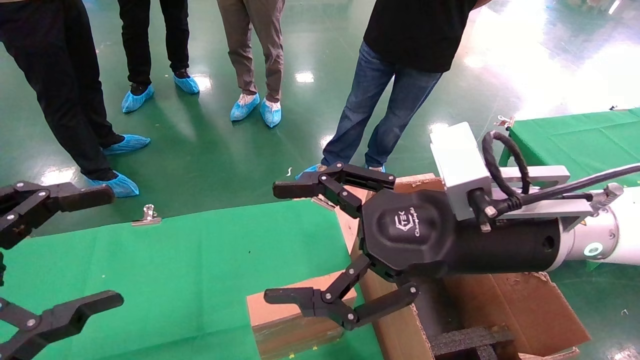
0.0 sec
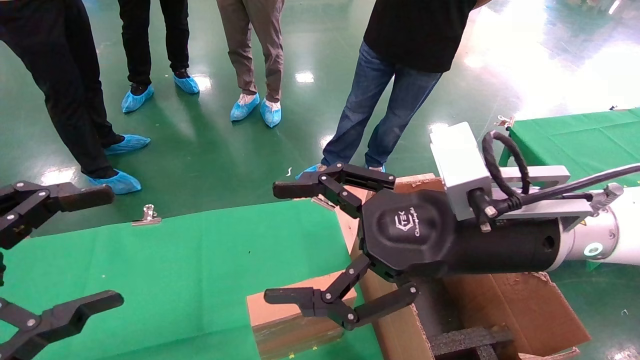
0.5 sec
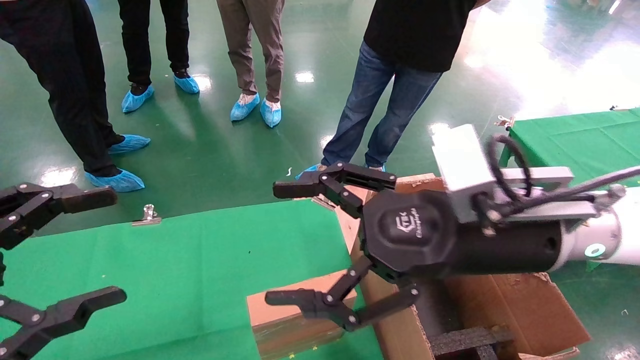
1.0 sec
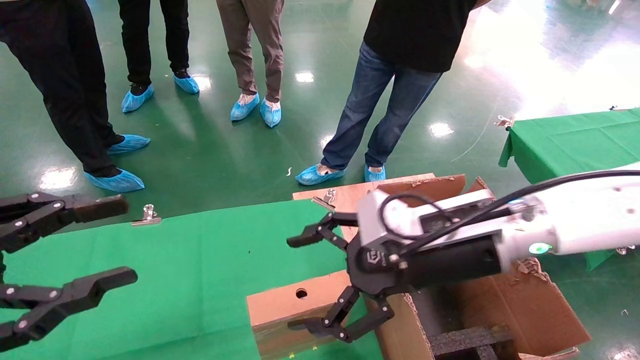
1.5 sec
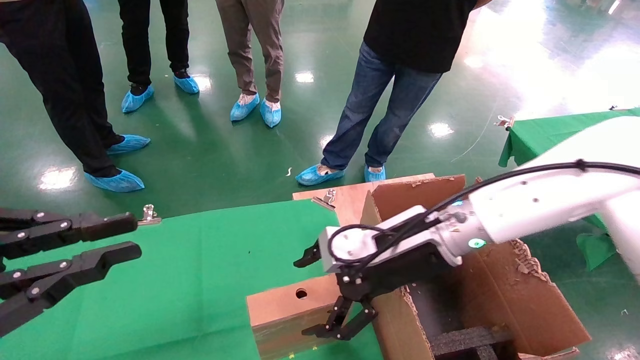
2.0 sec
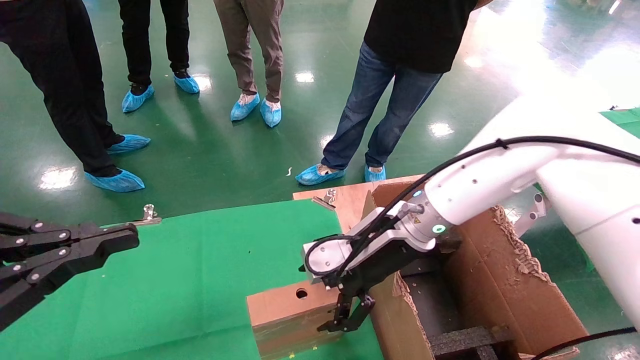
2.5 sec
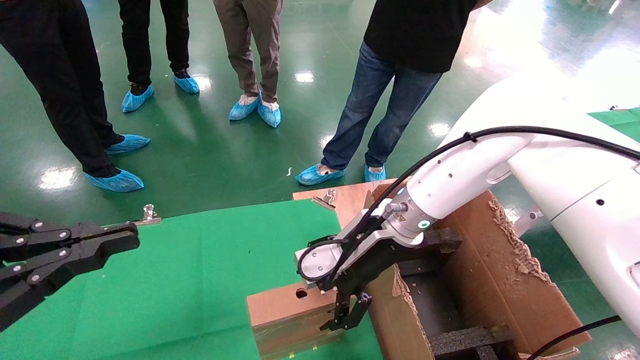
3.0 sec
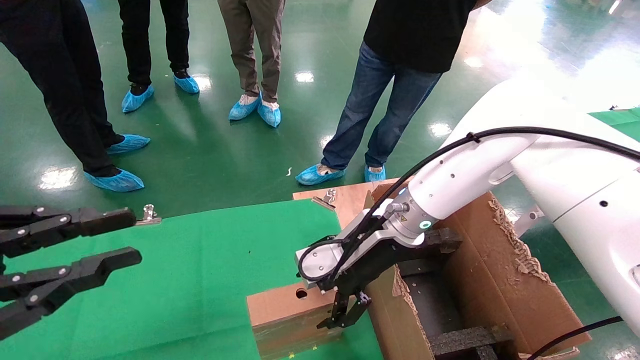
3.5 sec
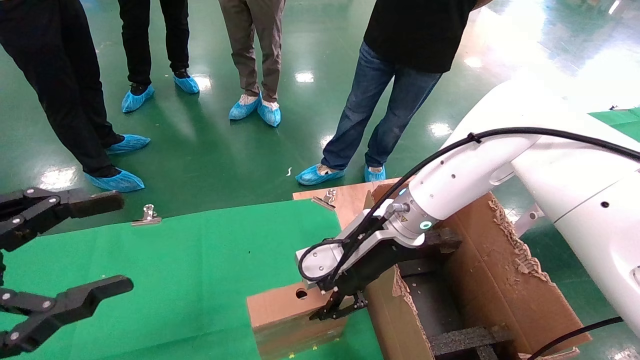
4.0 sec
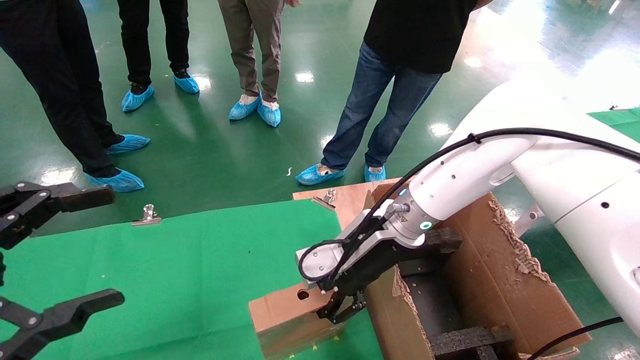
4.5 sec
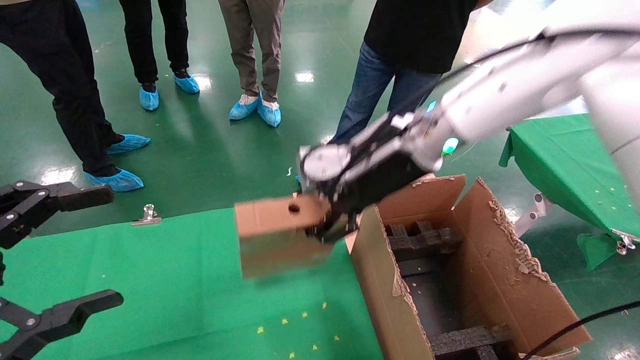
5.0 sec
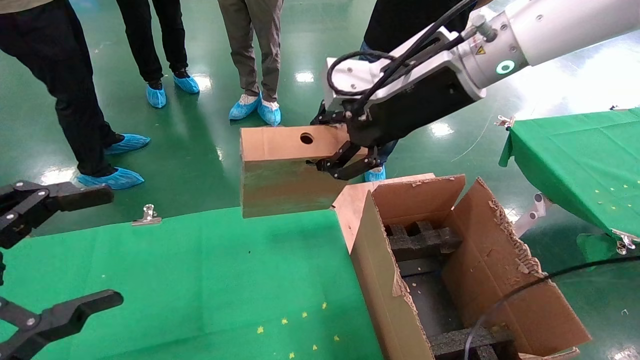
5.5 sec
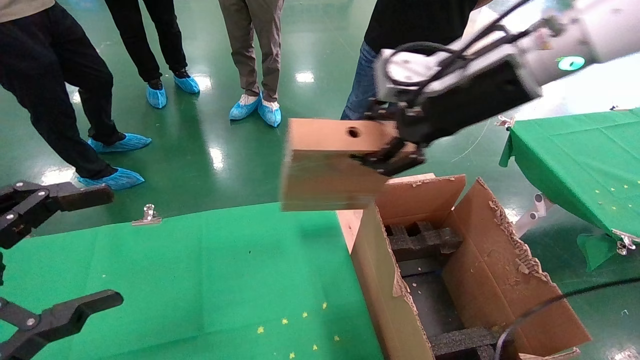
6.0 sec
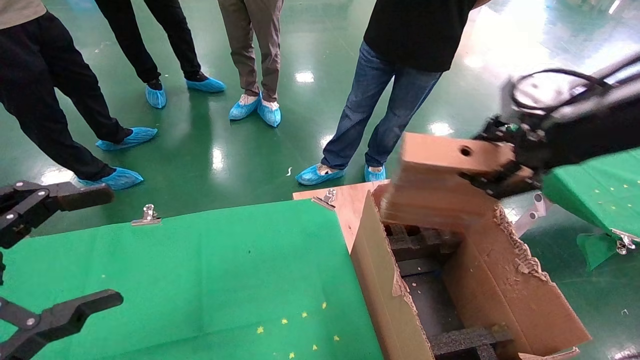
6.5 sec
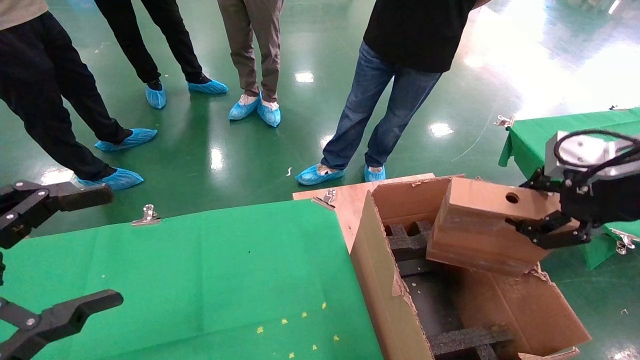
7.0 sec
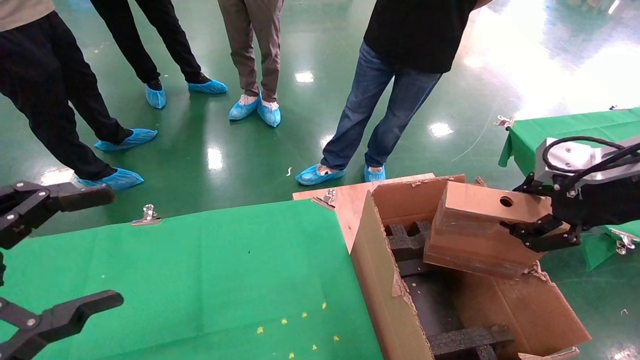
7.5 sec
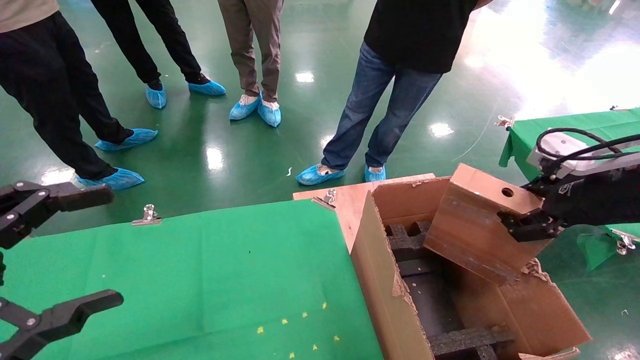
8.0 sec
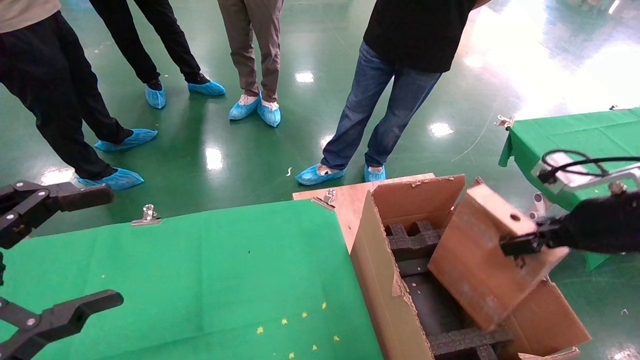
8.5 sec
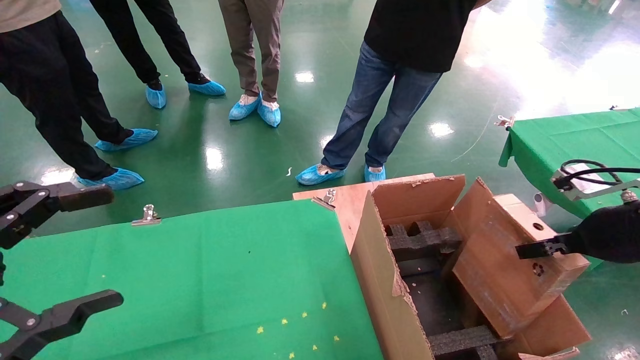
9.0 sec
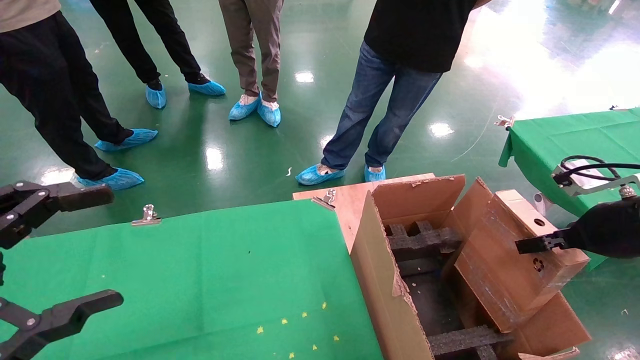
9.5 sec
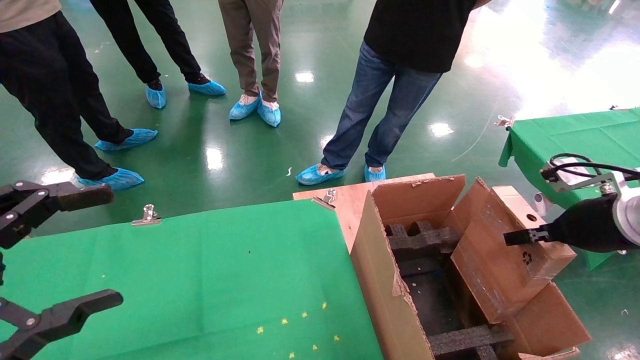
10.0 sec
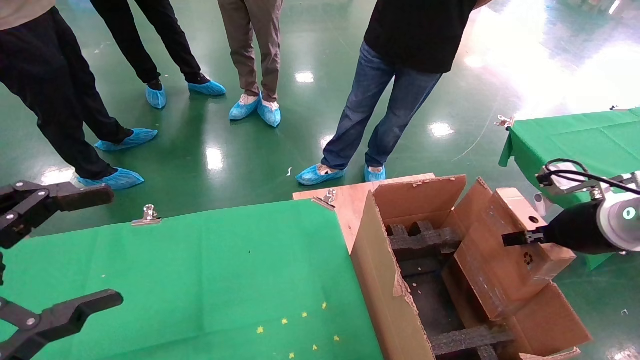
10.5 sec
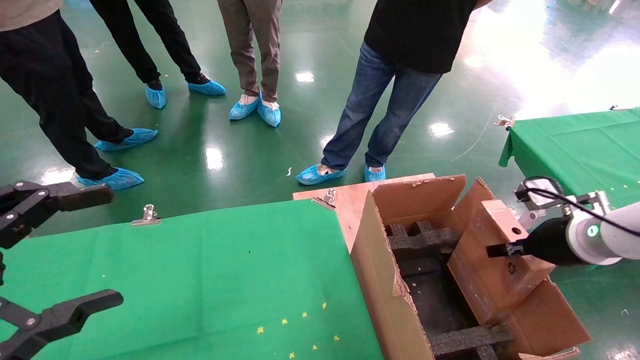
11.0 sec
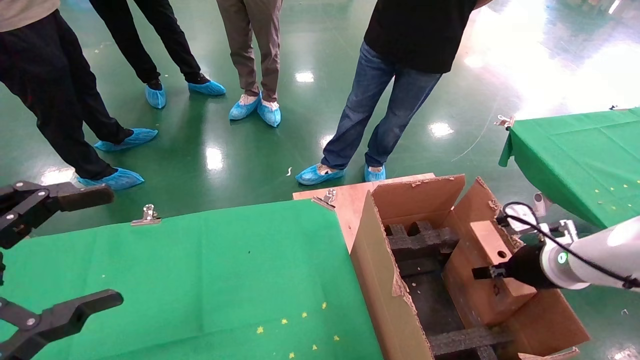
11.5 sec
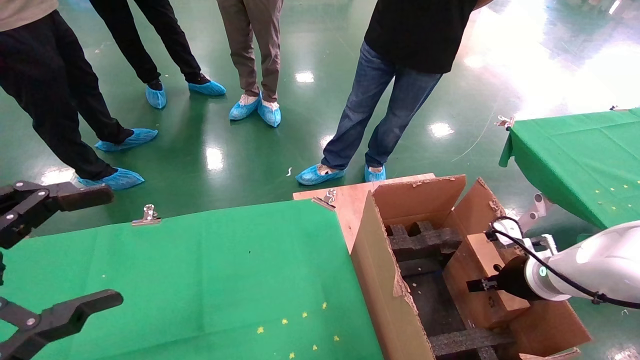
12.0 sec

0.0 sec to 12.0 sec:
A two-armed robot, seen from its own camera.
Task of the whole recording: using a robotic arm to pick up a cardboard box and palace it the carton.
Step, 1.5 sec to 4.0 sec: Pick up the mouse and the power cord paper box.
0.0 sec to 2.0 sec: The left gripper closes, while the right gripper heads forward and downward, covering roughly 10 cm.
2.0 sec to 4.0 sec: The right gripper changes place by some 5 cm, and closes up.
4.0 sec to 6.0 sec: The right gripper travels upward and to the right by approximately 25 cm, and closes, while the left gripper opens.
6.0 sec to 8.0 sec: The right gripper is displaced to the right, downward and backward by roughly 20 cm.
8.0 sec to 10.0 sec: The right gripper heads downward, covering approximately 5 cm.
10.0 sec to 12.0 sec: The right gripper is displaced downward and forward by about 15 cm.

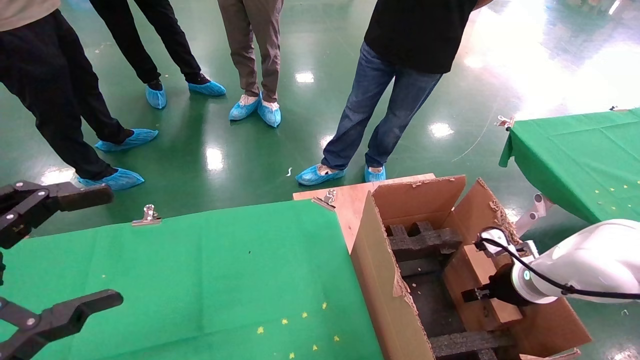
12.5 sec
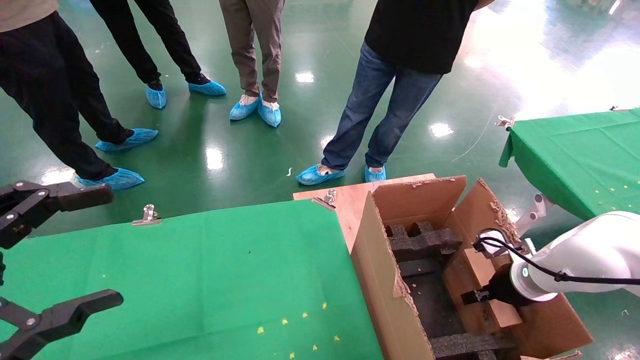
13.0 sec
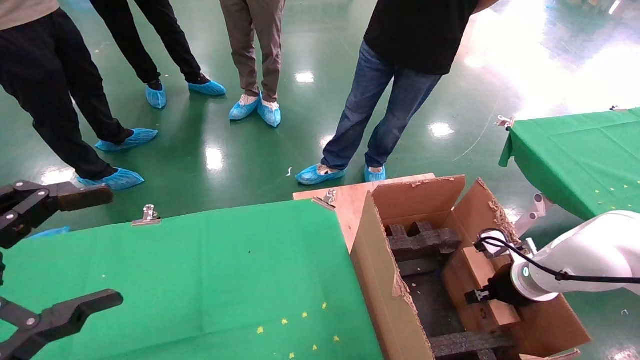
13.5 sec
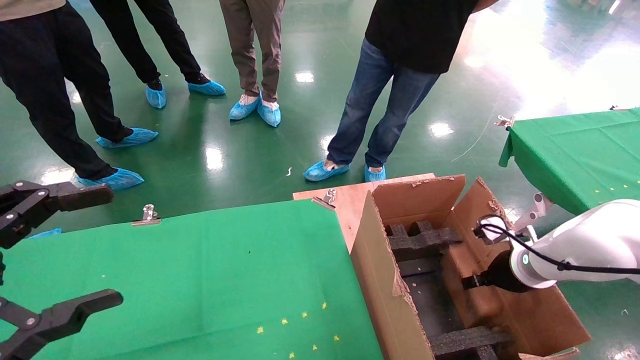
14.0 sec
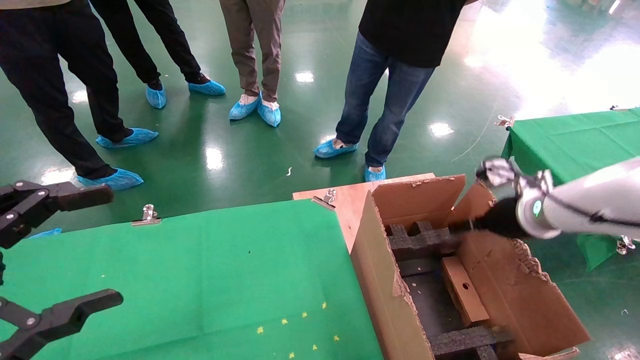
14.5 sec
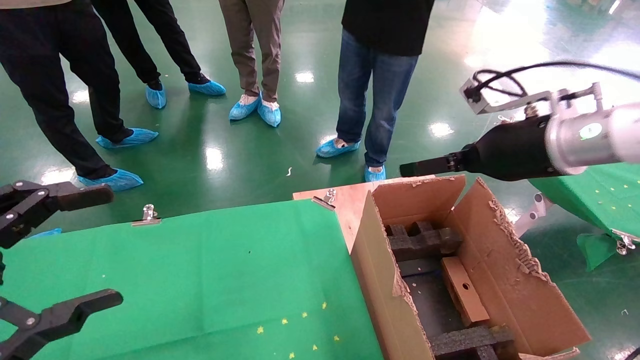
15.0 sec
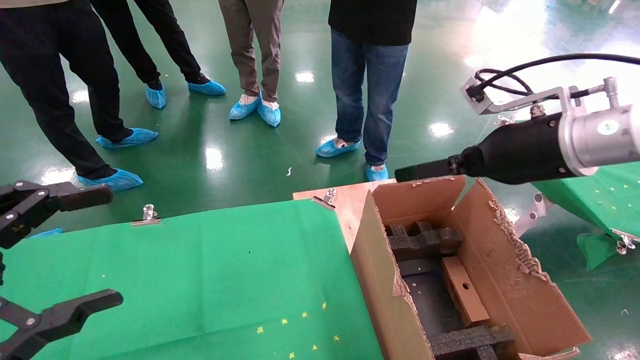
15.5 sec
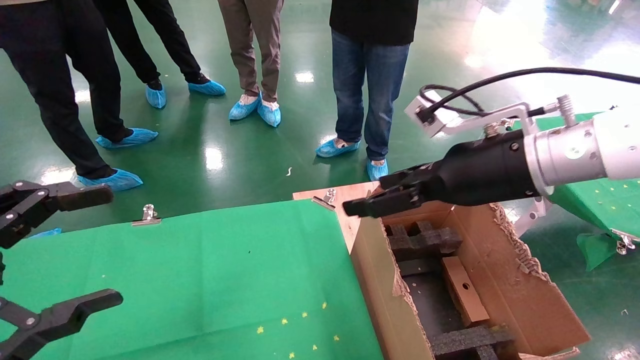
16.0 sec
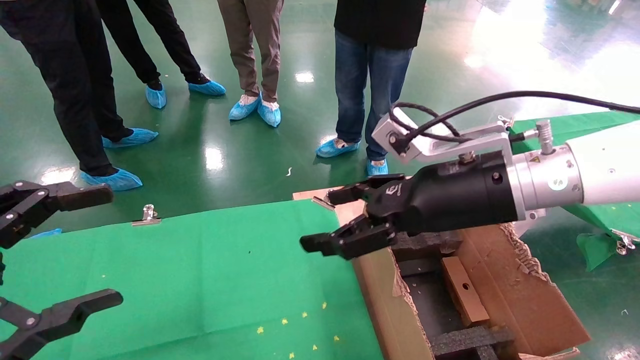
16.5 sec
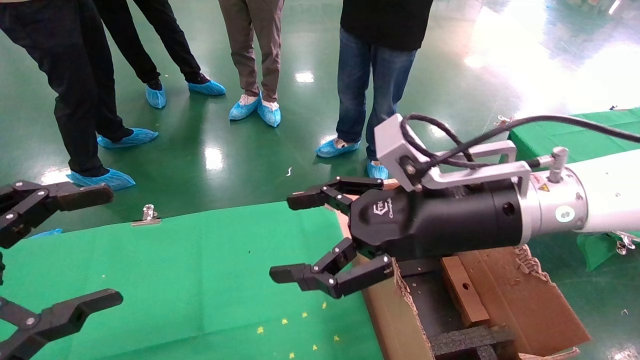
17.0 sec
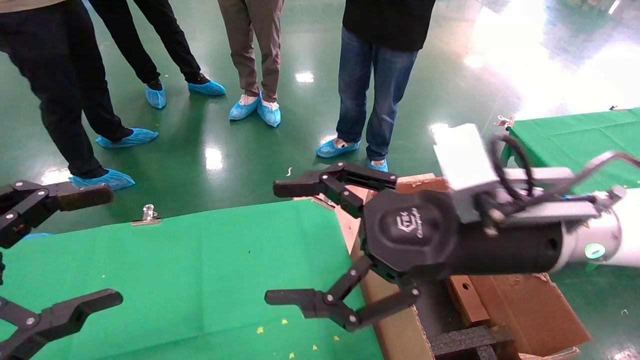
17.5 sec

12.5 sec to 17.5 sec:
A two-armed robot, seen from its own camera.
Task of the whole recording: using a robotic arm to pick up a cardboard box and palace it the carton.
Step, 12.5 sec to 14.5 sec: Place the mouse and the power cord paper box into the container.
12.5 sec to 15.0 sec: The right gripper shifts about 25 cm upward, and opens up.
15.0 sec to 17.5 sec: The right gripper is displaced to the left and backward by some 15 cm.
